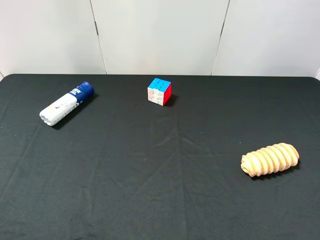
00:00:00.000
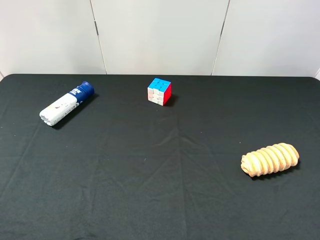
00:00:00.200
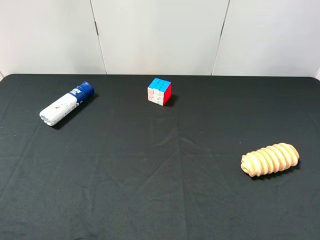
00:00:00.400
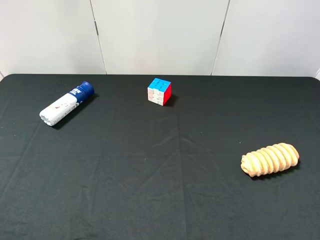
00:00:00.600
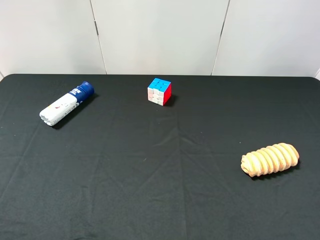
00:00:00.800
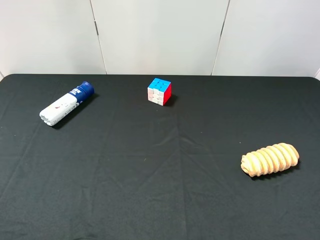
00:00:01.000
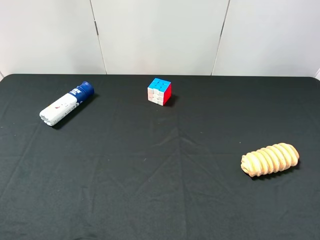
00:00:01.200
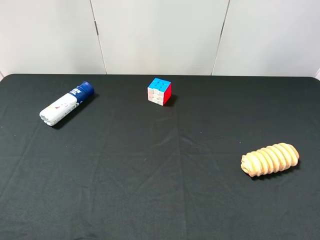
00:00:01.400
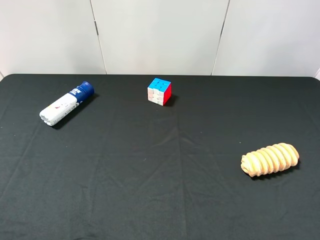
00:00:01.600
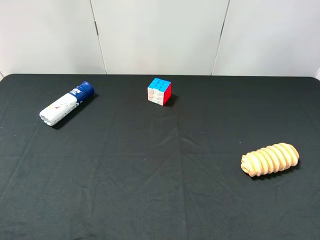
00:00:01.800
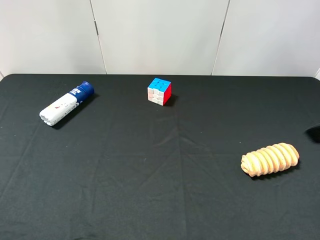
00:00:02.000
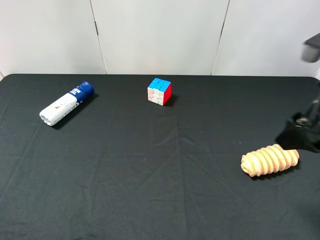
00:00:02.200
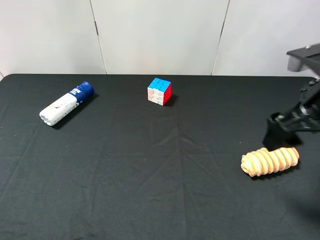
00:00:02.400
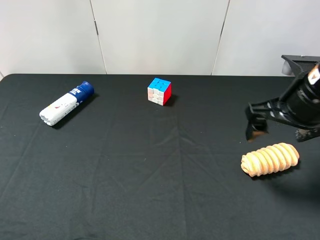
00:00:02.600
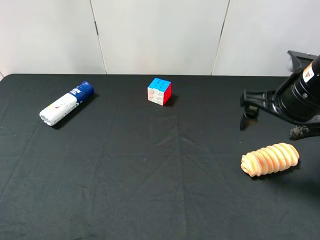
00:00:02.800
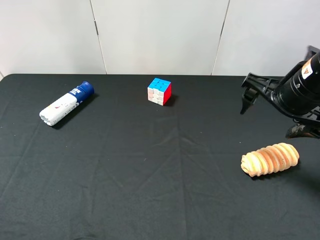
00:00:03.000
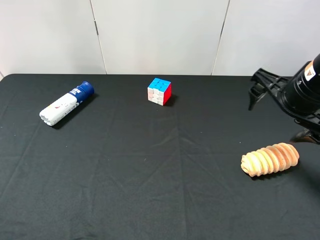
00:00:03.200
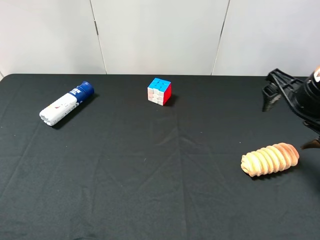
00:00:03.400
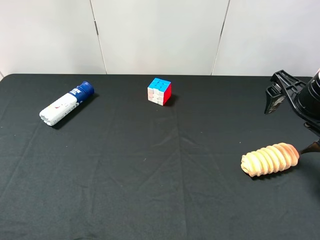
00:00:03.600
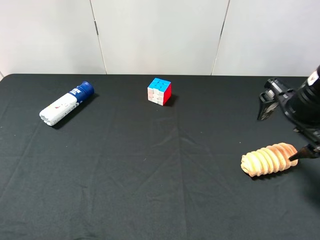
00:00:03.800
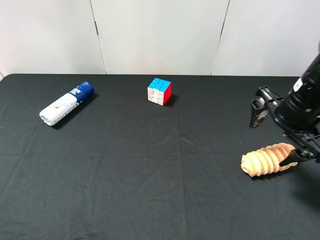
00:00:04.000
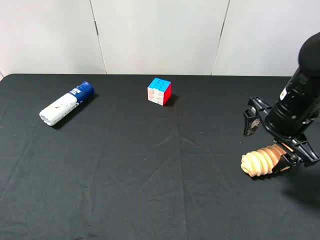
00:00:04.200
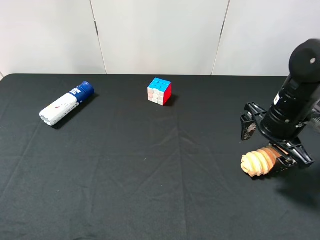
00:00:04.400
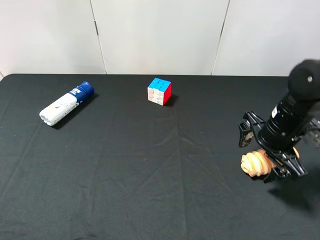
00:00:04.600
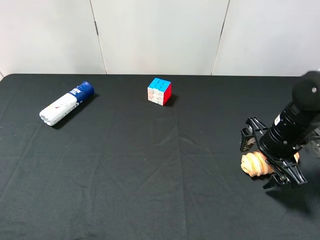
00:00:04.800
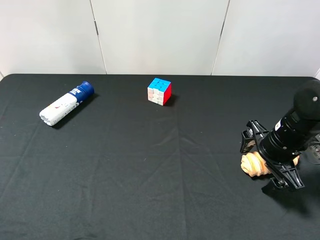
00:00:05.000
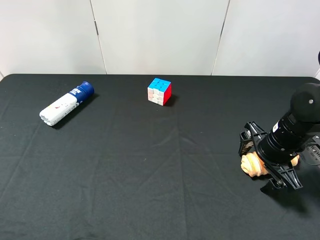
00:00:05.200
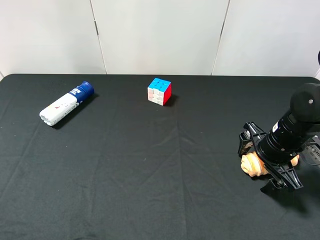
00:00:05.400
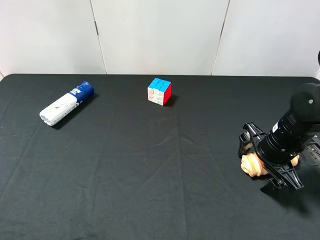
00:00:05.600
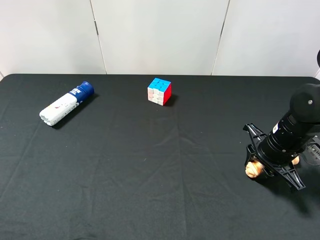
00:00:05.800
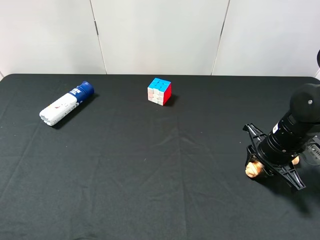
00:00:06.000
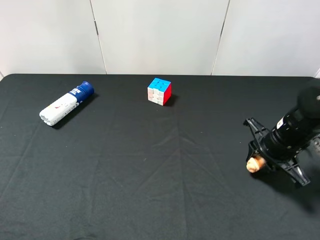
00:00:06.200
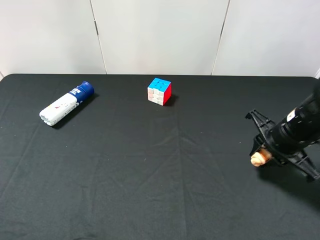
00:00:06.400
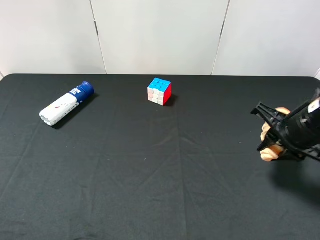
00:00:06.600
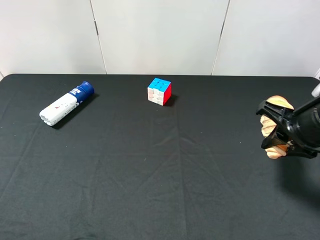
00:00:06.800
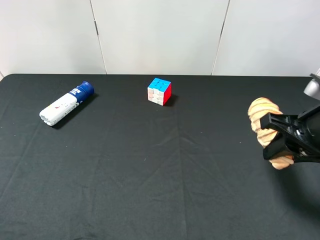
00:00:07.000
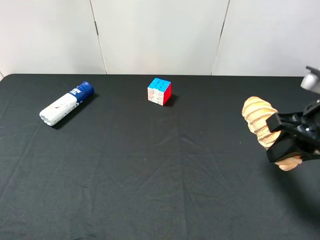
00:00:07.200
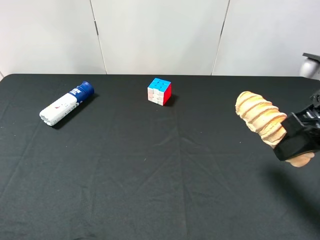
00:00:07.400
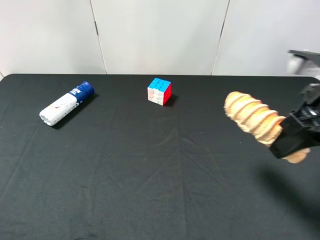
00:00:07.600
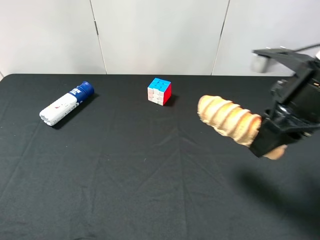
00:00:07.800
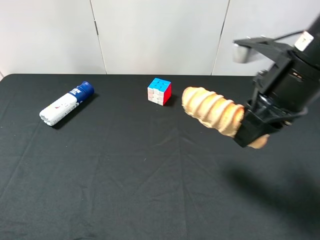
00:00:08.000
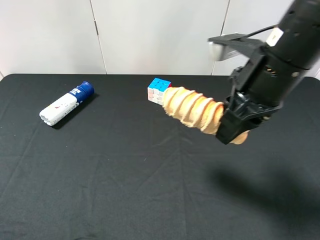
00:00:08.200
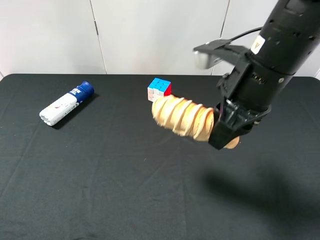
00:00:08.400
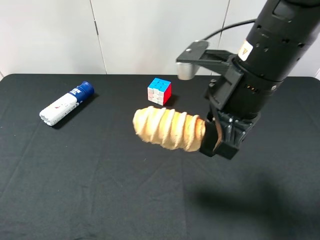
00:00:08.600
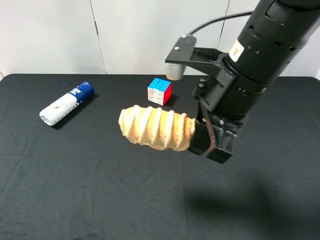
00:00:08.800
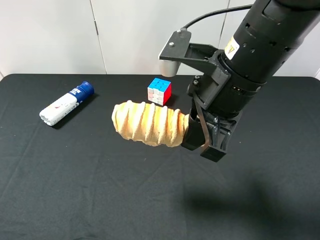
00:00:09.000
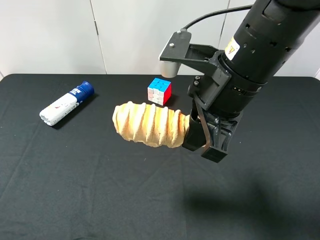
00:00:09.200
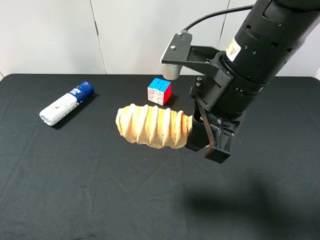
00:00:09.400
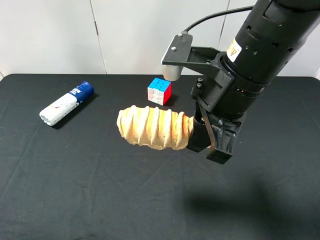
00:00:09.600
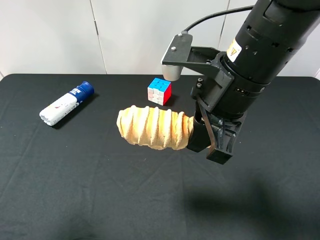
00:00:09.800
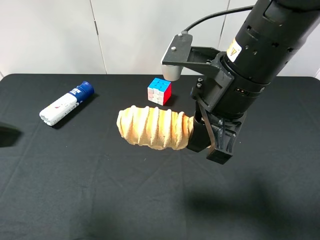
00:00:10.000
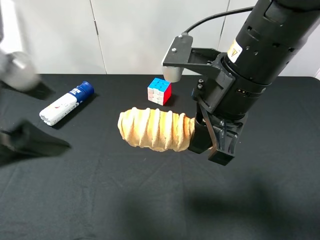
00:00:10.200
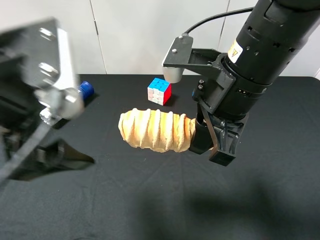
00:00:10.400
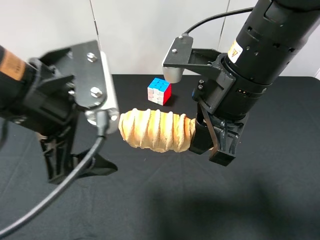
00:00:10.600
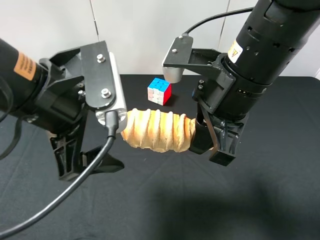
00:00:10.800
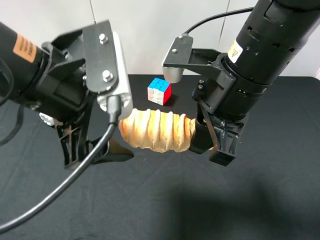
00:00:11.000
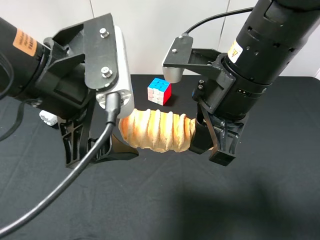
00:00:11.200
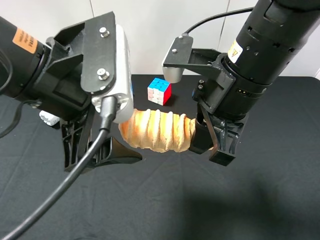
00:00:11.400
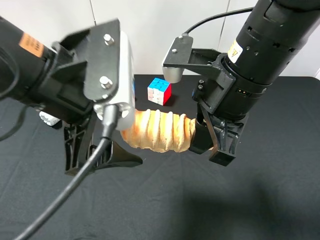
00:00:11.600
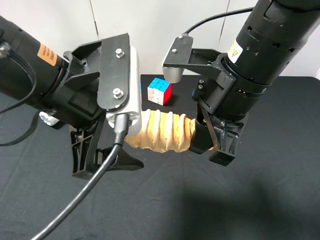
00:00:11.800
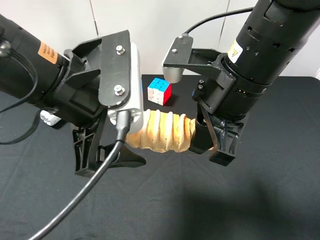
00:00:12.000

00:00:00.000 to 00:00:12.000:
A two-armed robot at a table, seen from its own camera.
Task of the whole recording: use the right gripper to pick up the item and transfer it from the right gripper to the left gripper.
Step, 00:00:00.000 to 00:00:06.000: Use the right gripper to grab the bread on the right side of the table.
00:00:01.600 to 00:00:03.000: The right gripper goes roughly 20 cm forward, downward and to the left.
00:00:03.000 to 00:00:04.400: The right gripper travels downward by approximately 10 cm.
00:00:04.400 to 00:00:06.000: The right gripper changes place by some 5 cm, and closes.
00:00:06.000 to 00:00:07.600: The right gripper travels upward by some 15 cm.
00:00:07.600 to 00:00:09.000: The right gripper is displaced to the left by some 15 cm.
00:00:09.000 to 00:00:10.400: The left gripper is displaced to the right and forward by approximately 20 cm.
00:00:10.400 to 00:00:12.000: The left gripper shifts by some 5 cm.

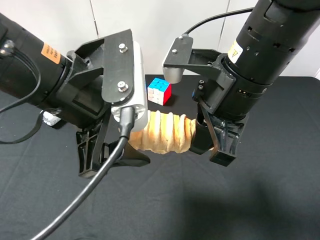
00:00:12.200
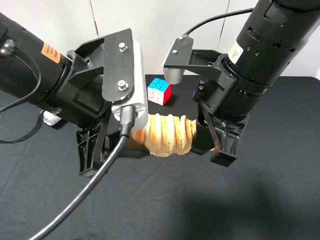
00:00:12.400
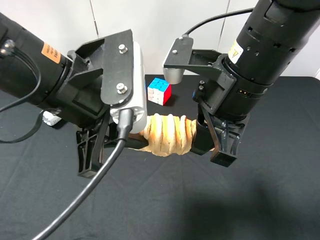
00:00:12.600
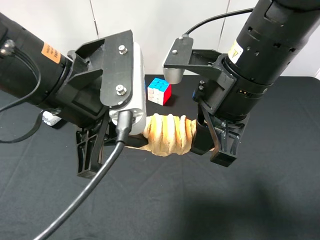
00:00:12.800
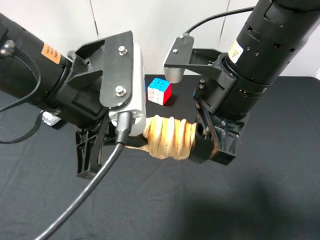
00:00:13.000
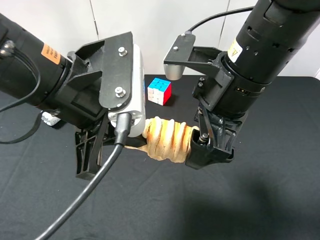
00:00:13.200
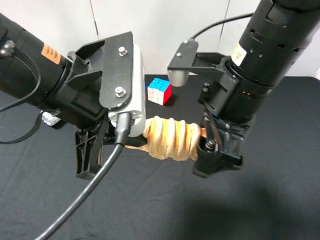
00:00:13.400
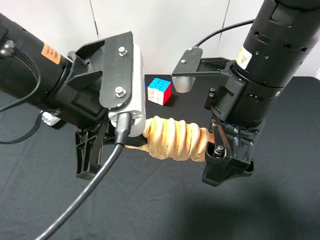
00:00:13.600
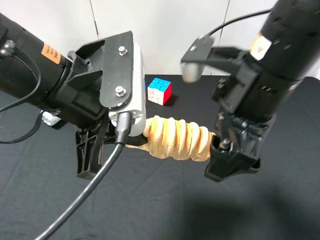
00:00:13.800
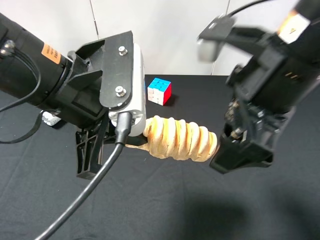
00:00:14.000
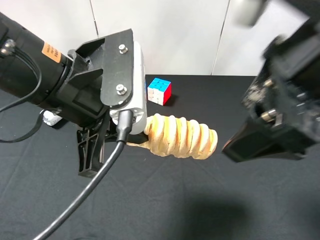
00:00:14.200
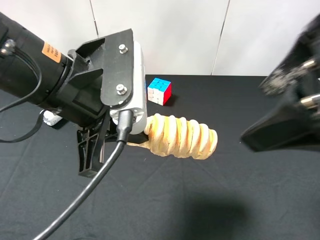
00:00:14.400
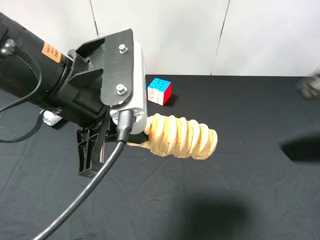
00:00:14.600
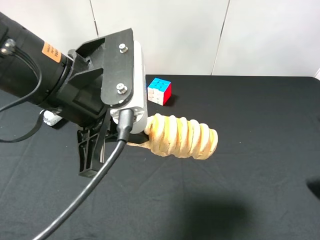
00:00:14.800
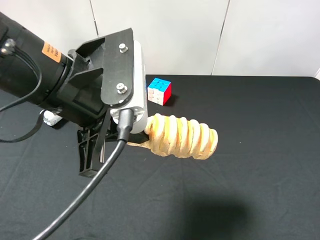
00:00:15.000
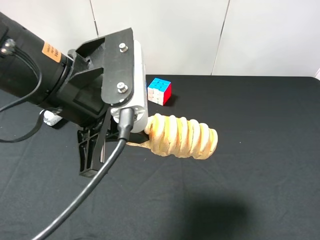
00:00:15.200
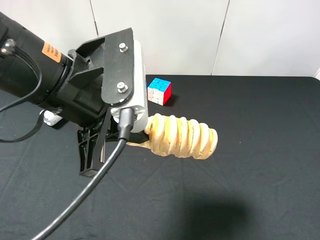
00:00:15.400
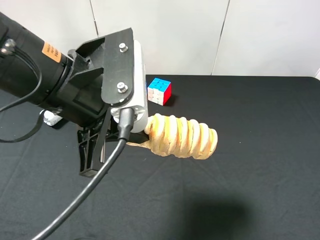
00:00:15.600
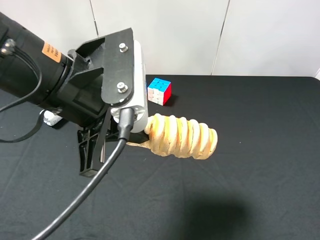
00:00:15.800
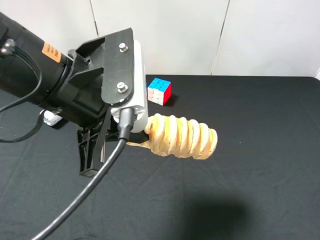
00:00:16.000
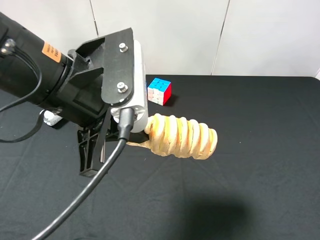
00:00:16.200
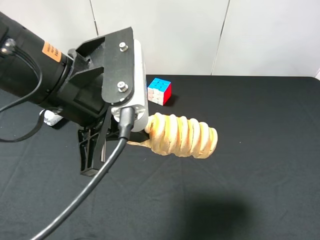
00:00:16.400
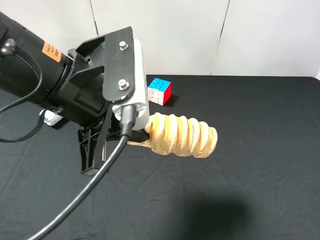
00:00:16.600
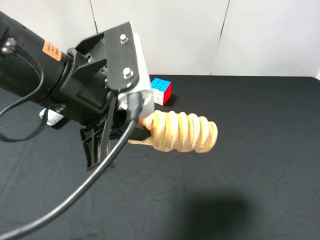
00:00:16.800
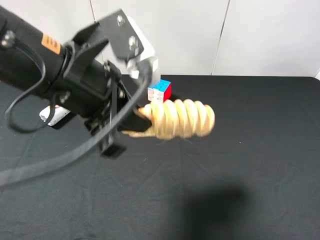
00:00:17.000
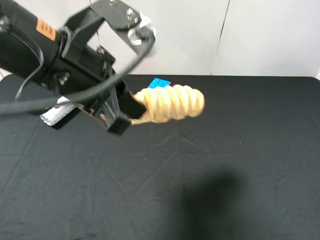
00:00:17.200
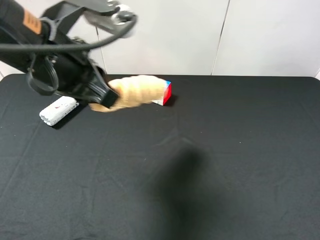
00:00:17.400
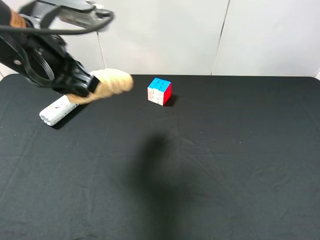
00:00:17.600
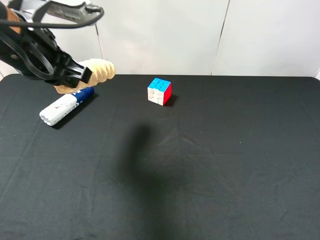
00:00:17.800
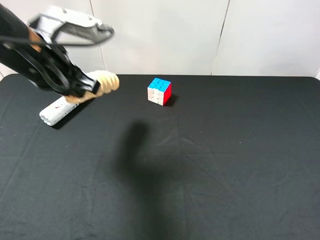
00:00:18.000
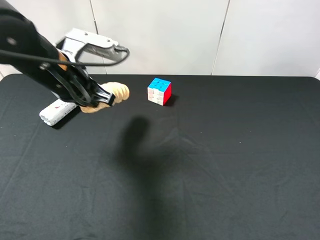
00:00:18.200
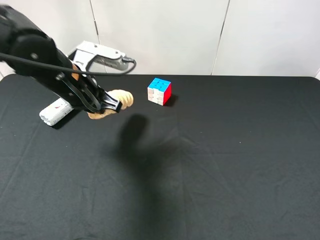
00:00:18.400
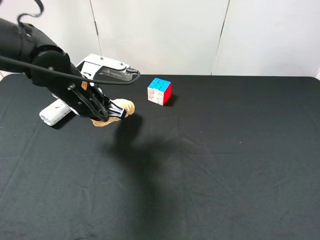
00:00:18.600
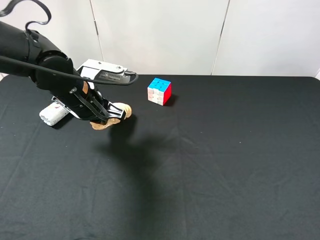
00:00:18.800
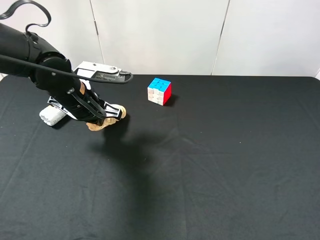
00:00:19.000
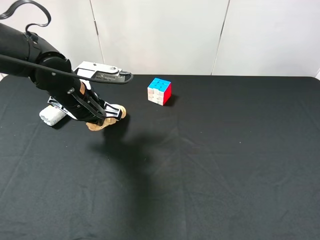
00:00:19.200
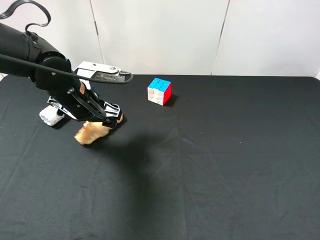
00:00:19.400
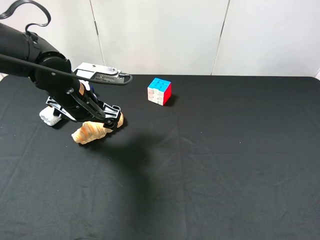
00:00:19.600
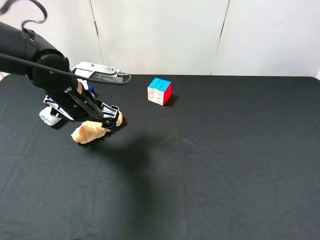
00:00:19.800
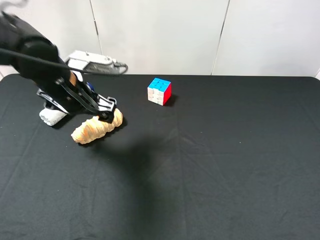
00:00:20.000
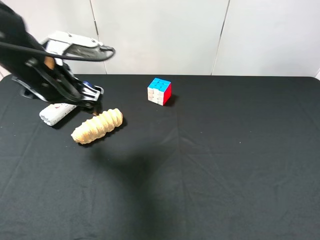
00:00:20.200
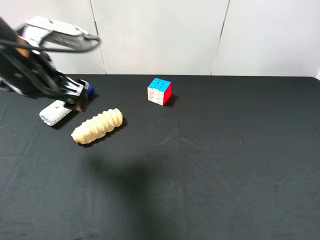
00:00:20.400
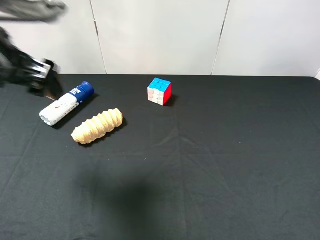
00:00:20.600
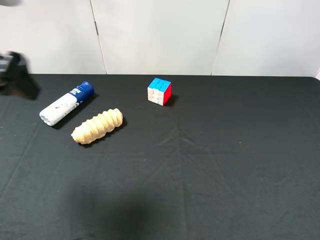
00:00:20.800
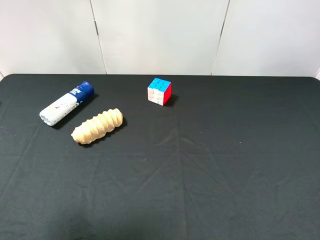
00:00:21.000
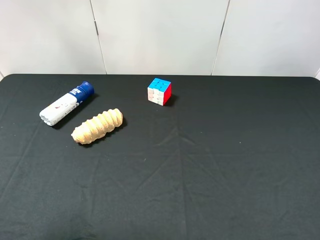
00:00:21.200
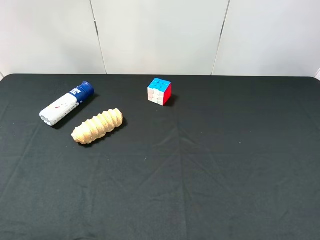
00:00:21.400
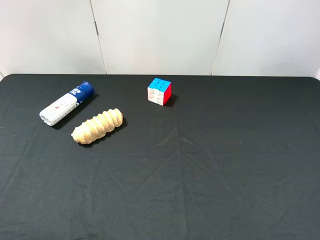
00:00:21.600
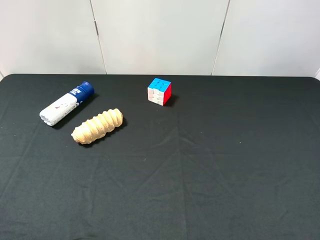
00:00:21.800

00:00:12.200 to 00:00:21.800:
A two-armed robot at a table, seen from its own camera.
Task of the whole recording: use the right gripper to pick up the item and transfer it from the right gripper to the left gripper.
Step, 00:00:13.800 to 00:00:19.600: The left gripper places bread on the left side of the table.
00:00:12.200 to 00:00:13.800: The right gripper opens; the left gripper closes up.
00:00:13.800 to 00:00:15.400: The right gripper shifts about 25 cm to the right and backward.
00:00:17.000 to 00:00:18.600: The left gripper goes roughly 15 cm downward and forward.
00:00:18.600 to 00:00:20.200: The left gripper travels upward by approximately 5 cm, and opens.
00:00:20.200 to 00:00:21.800: The left gripper is displaced backward and to the left by roughly 30 cm.
